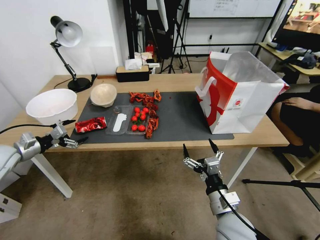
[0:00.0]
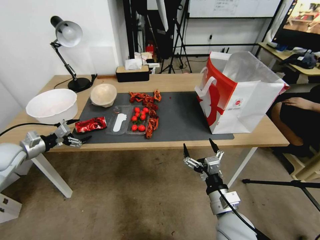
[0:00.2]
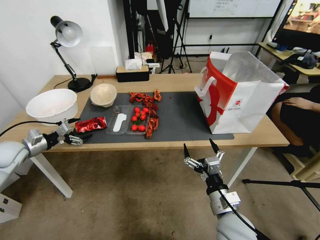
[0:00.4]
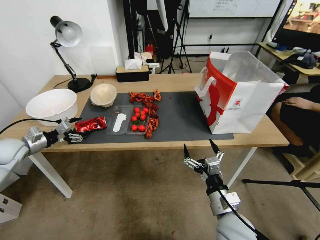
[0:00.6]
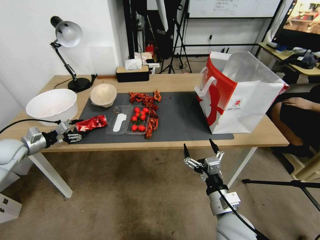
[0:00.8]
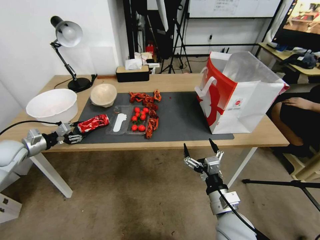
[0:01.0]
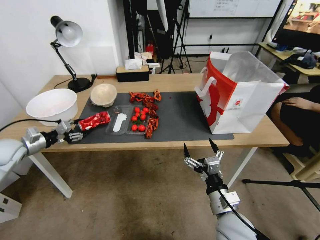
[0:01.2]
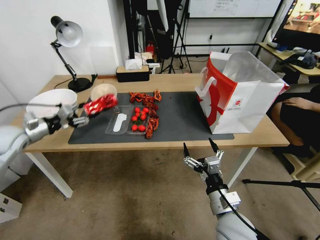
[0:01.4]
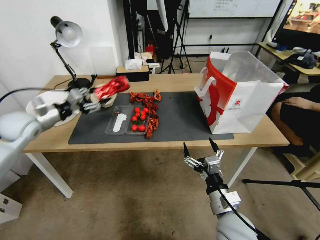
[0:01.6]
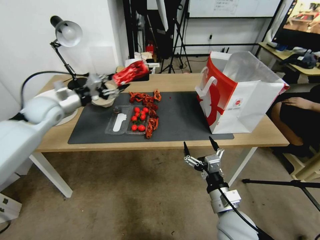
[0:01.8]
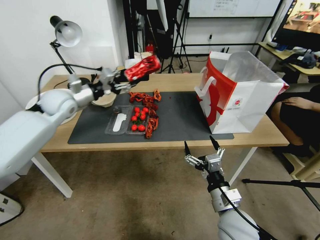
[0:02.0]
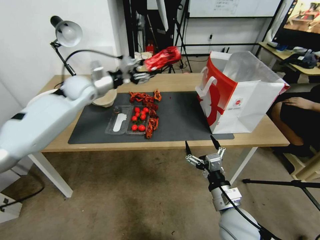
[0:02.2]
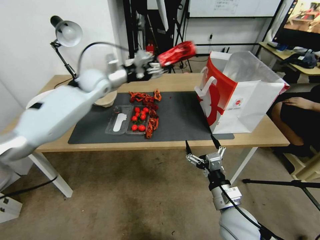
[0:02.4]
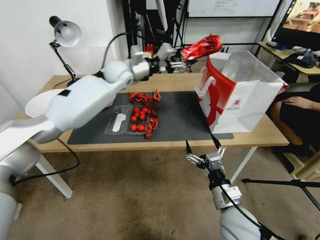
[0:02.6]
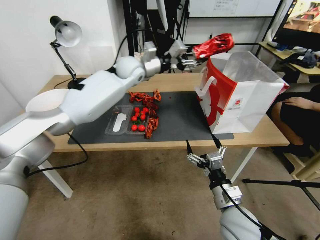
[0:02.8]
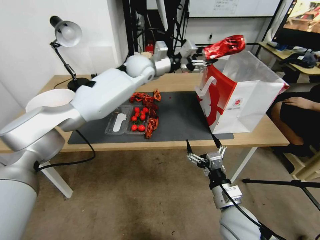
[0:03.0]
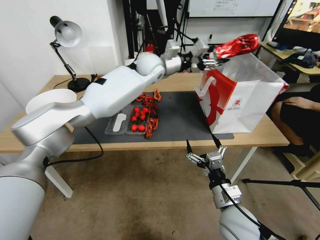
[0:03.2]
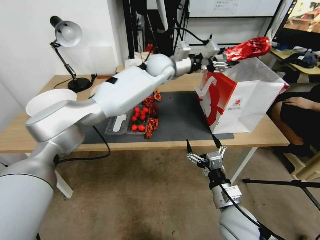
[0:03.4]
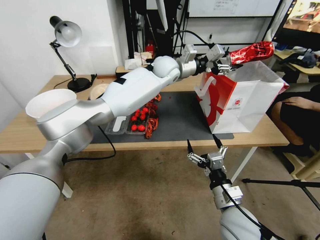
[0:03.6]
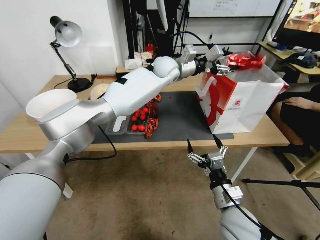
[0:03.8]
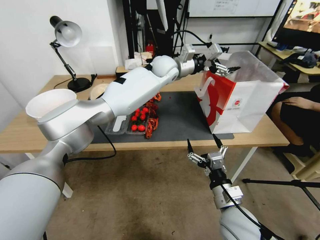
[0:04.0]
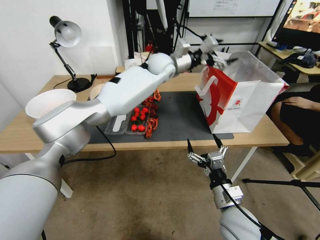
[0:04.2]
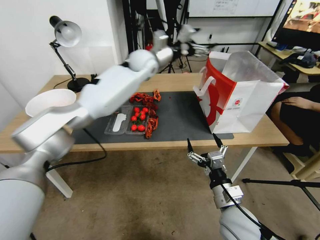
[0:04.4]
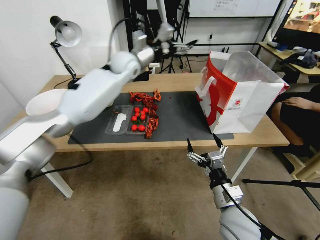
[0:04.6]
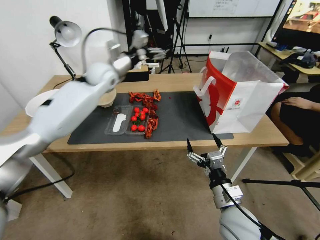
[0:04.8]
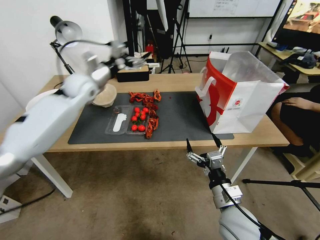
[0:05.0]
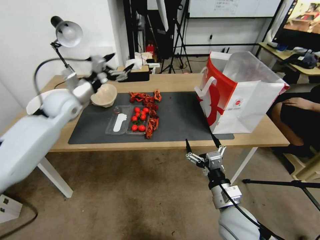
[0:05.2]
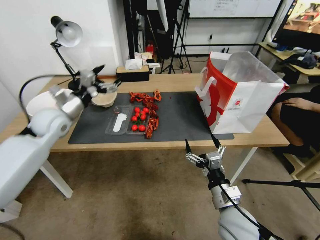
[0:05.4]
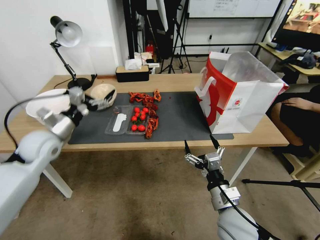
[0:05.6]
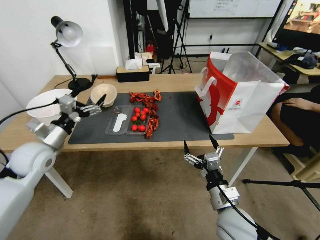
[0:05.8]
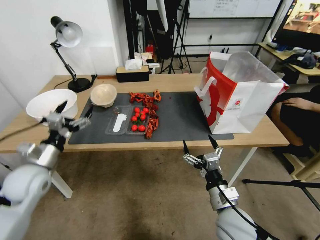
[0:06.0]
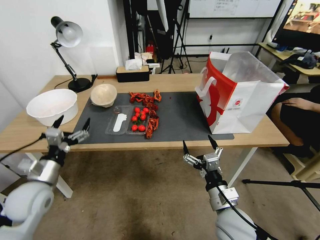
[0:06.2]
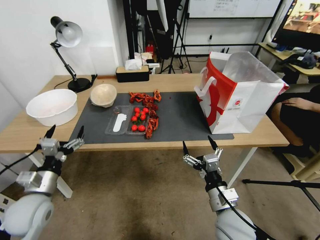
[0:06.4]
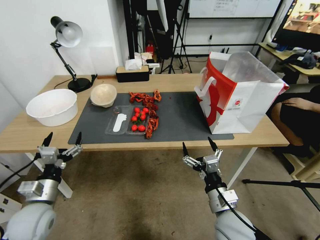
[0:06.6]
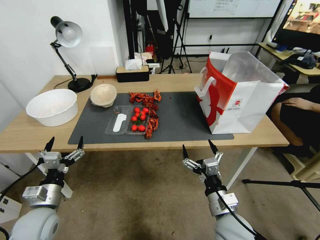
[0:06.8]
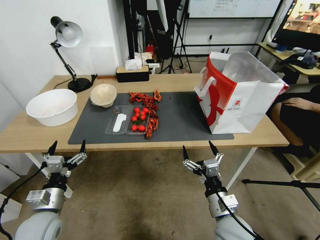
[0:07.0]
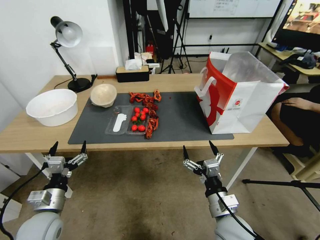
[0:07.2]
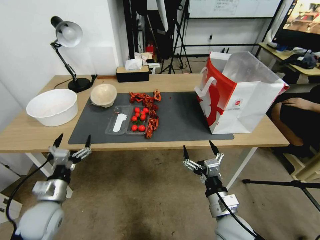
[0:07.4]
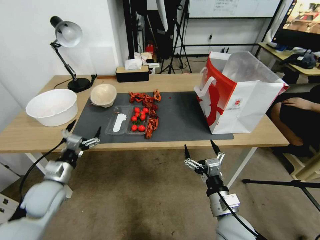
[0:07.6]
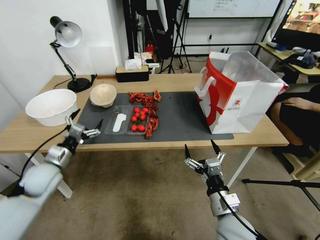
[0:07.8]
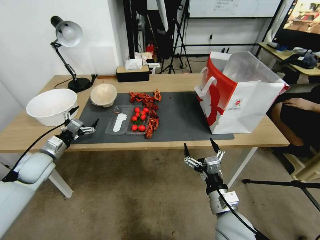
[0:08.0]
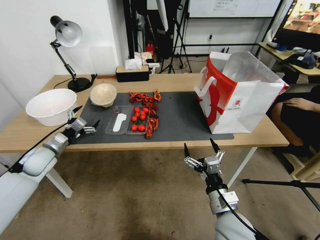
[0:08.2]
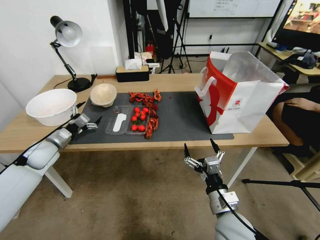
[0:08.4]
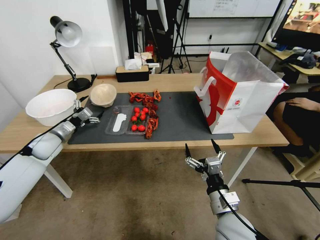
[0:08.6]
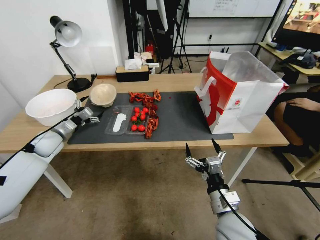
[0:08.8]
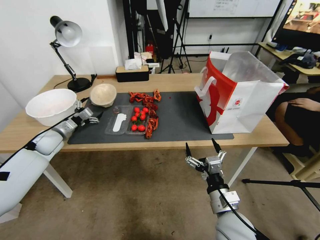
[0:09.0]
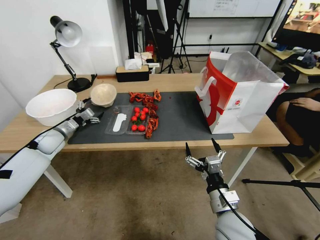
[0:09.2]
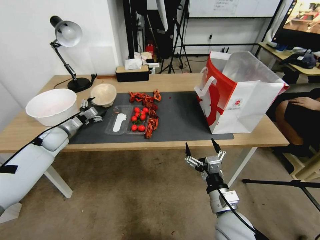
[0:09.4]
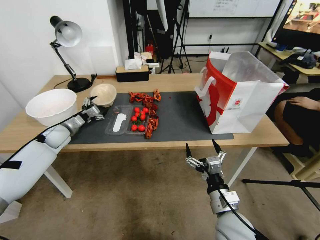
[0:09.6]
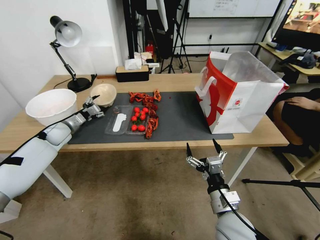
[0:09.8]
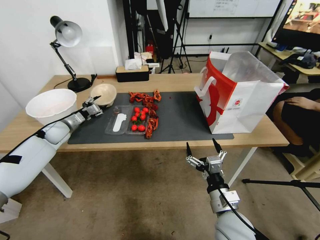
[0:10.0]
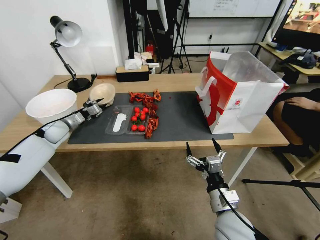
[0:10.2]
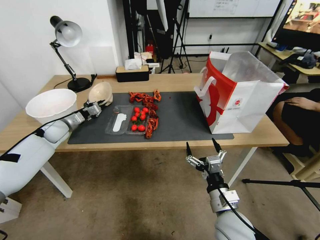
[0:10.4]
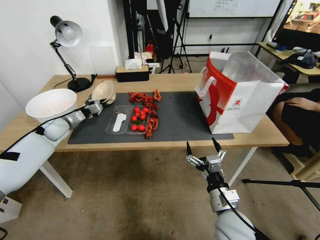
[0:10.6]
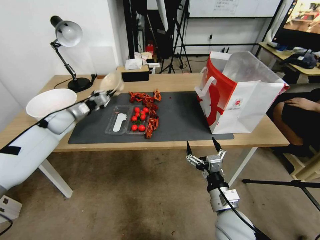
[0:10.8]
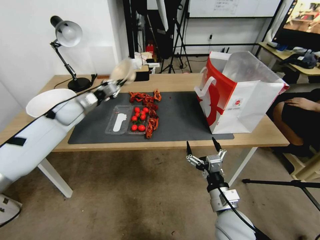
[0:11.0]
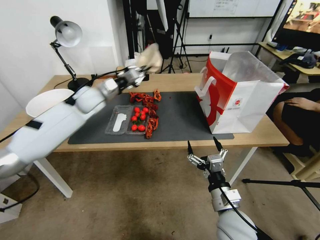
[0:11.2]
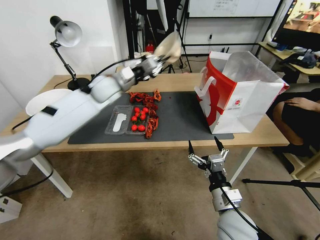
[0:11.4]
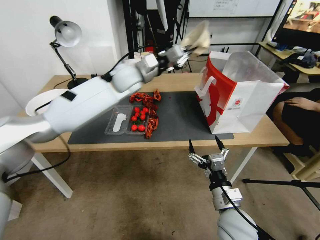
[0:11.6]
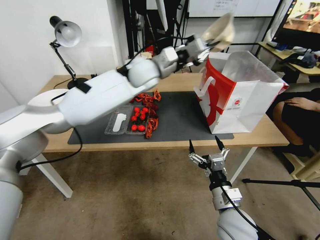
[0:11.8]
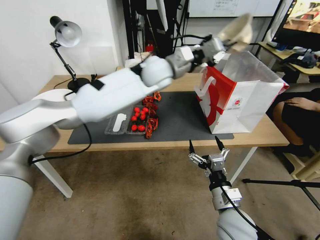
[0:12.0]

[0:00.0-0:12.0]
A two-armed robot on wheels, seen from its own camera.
0:00.0 to 0:01.6: The left gripper moves to the right, upward and forward, some 15 cm, and closes up.
0:01.6 to 0:03.0: The left gripper goes about 40 cm to the right and forward.
0:03.0 to 0:04.4: The left gripper travels to the right and back again, roughly 10 cm each way, and opens its fingers.
0:04.4 to 0:06.0: The left gripper moves backward, to the left and downward, roughly 50 cm.
0:06.0 to 0:07.6: The left gripper is displaced downward and backward by some 10 cm.
0:07.6 to 0:09.0: The left gripper moves forward, some 20 cm.
0:09.0 to 0:10.4: The left gripper is displaced forward by approximately 5 cm, and closes up.
0:10.4 to 0:12.0: The left gripper shifts some 50 cm to the right and upward.

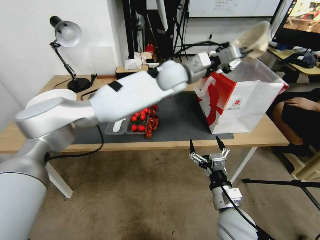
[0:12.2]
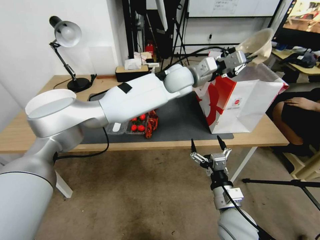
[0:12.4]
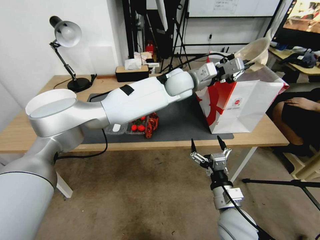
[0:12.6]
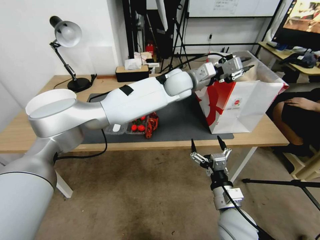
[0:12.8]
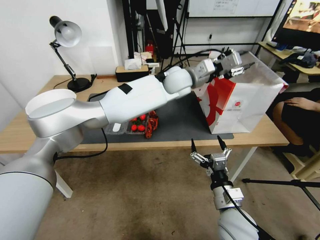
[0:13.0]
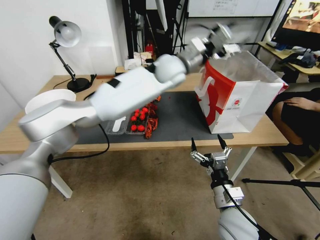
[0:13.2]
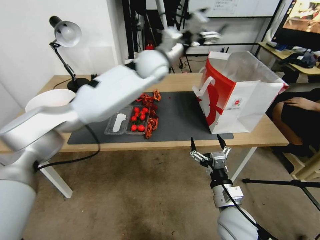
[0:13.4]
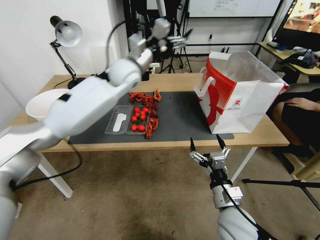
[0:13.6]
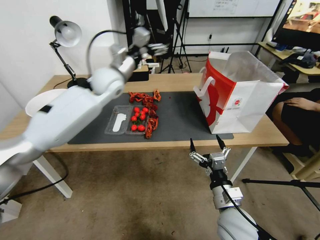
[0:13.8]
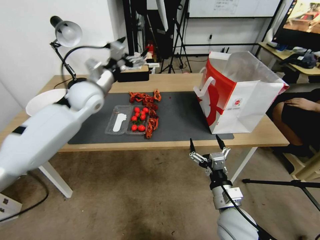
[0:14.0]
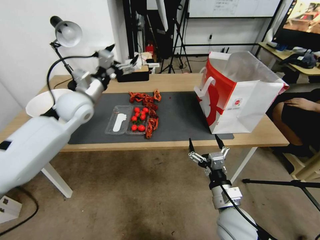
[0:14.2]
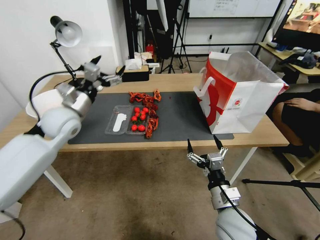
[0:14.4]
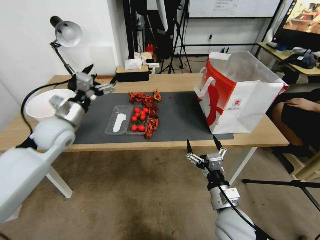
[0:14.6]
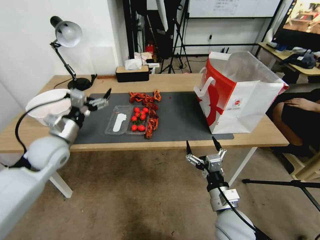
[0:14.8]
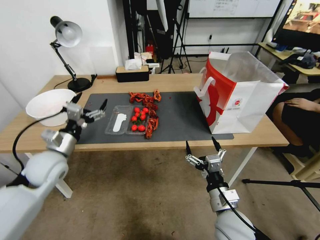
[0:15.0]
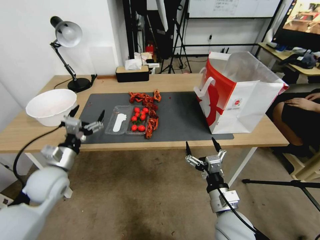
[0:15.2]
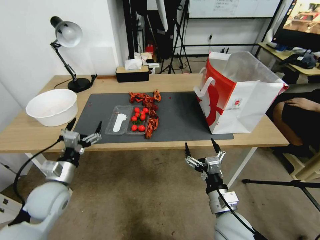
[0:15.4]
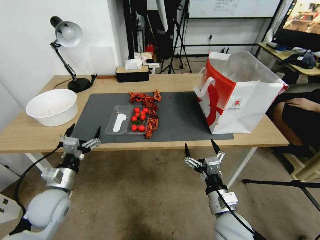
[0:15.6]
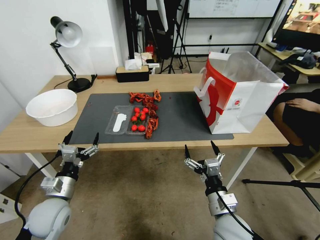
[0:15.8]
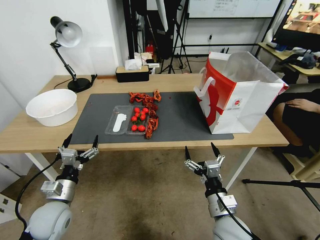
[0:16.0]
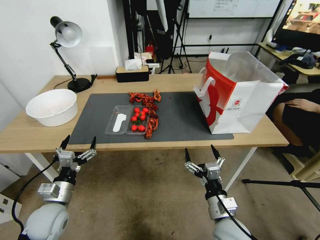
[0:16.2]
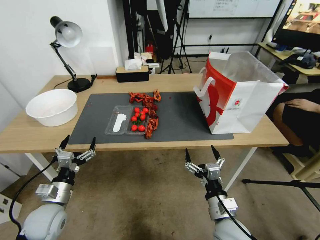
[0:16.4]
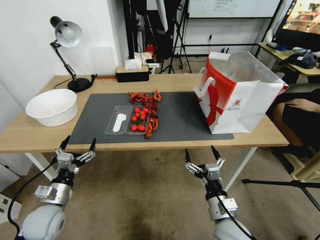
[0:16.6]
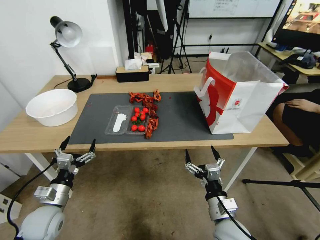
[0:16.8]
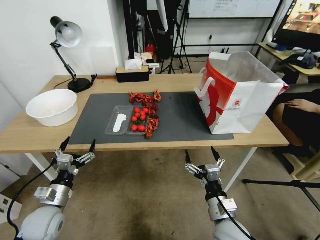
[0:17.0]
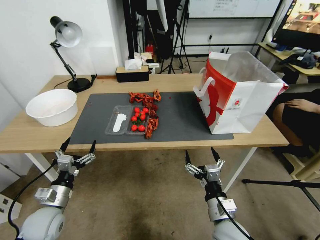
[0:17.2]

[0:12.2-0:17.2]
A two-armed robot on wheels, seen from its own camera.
0:12.2 to 0:13.8: The left gripper heads to the left, covering roughly 20 cm, and opens.
0:13.8 to 0:15.6: The left gripper goes roughly 40 cm backward, downward and to the left.
0:15.6 to 0:17.2: The left gripper changes place by approximately 5 cm.

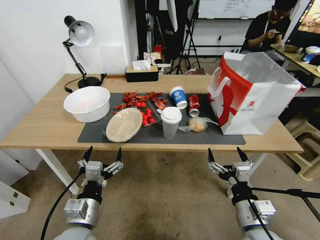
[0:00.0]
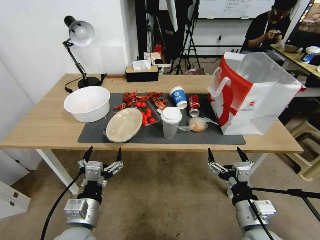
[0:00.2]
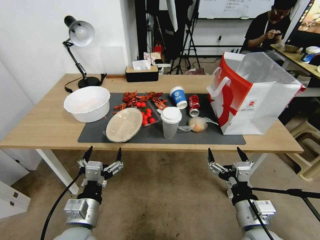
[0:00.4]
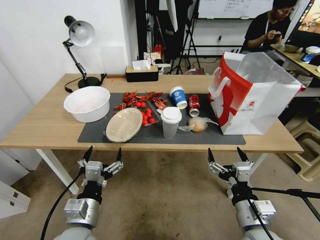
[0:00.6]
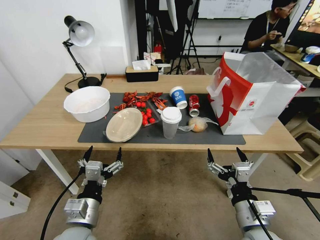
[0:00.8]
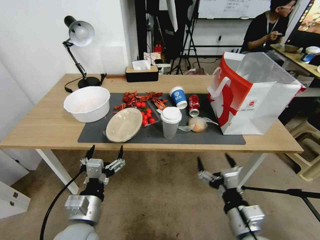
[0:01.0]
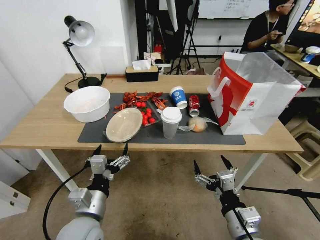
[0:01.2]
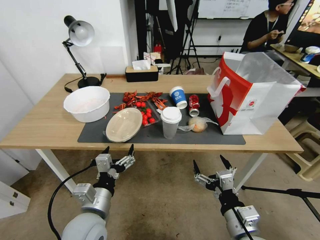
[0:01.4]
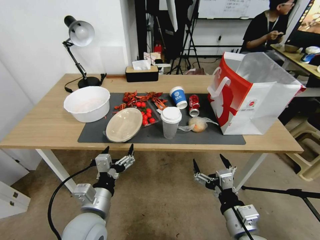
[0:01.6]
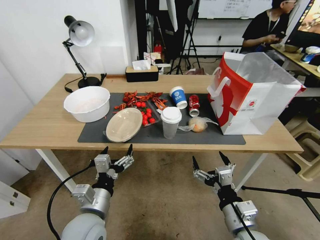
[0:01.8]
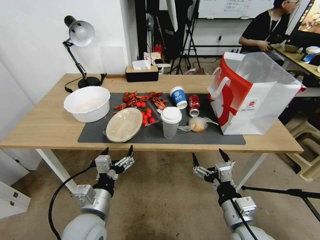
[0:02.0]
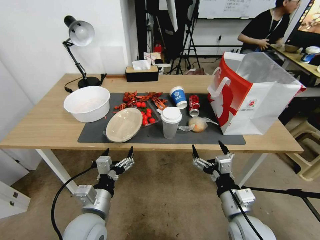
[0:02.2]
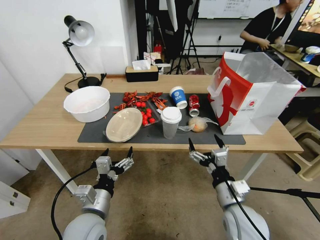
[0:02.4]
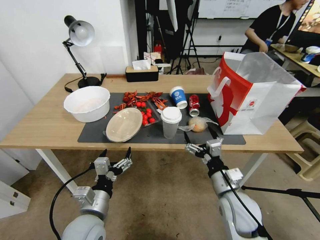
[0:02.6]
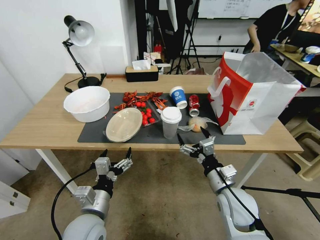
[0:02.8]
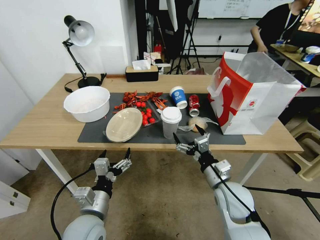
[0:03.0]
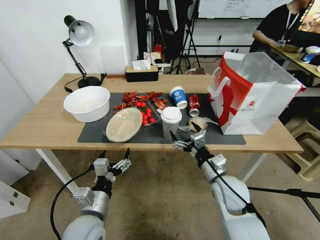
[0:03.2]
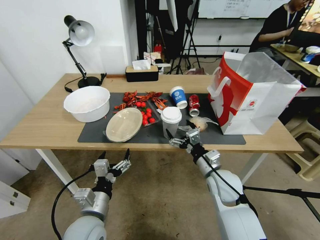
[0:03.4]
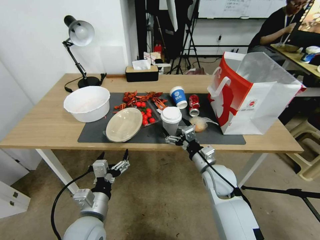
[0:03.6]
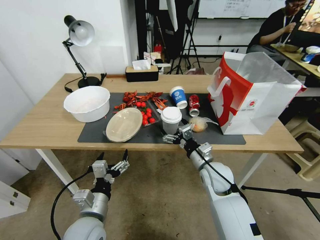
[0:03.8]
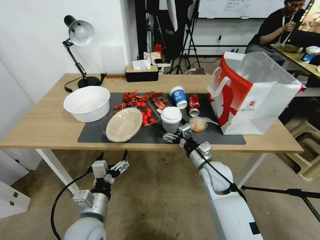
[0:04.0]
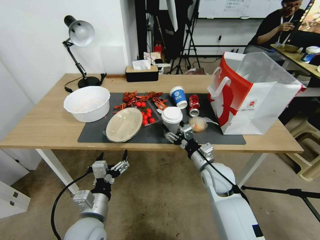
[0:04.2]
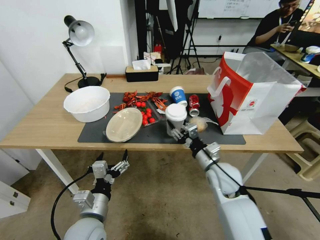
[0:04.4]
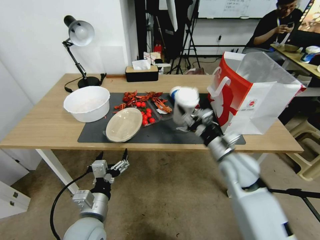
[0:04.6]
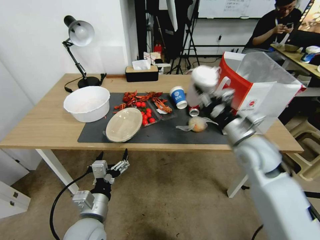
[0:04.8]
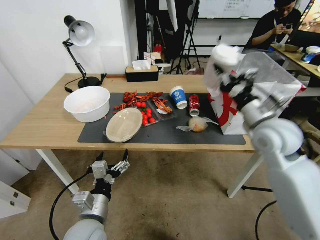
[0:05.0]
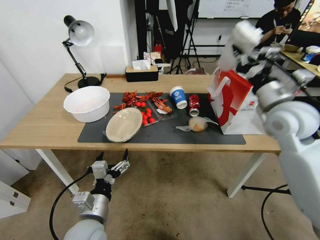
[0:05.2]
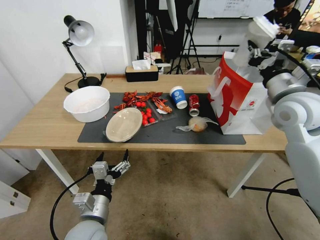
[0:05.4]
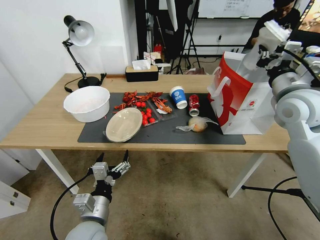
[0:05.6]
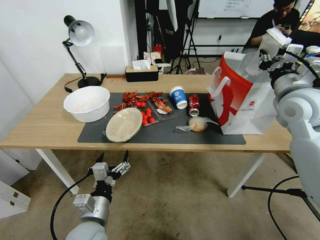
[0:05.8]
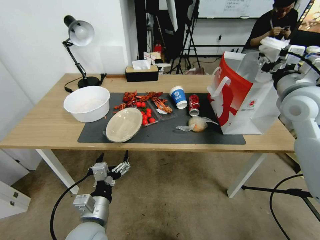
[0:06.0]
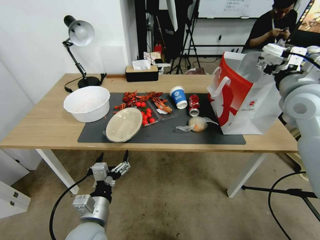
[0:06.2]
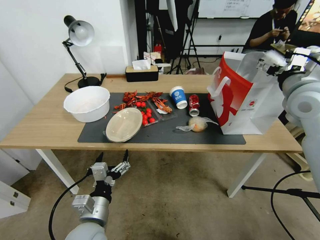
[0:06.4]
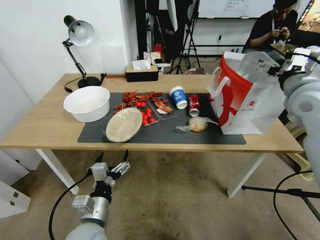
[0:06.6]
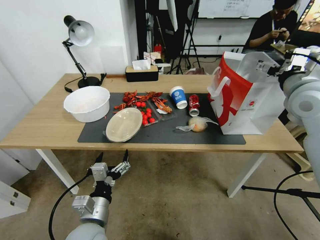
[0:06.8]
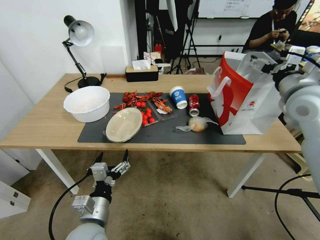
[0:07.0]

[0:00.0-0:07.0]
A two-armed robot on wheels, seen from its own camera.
0:01.4 to 0:02.8: The right gripper goes some 10 cm forward.
0:02.8 to 0:04.2: The right gripper moves forward, some 10 cm, and closes.
0:04.2 to 0:05.6: The right gripper is displaced upward and to the right by approximately 30 cm, and closes its fingers.
0:05.6 to 0:07.0: The right gripper opens its fingers.
